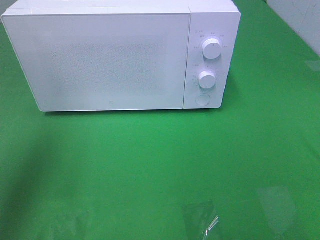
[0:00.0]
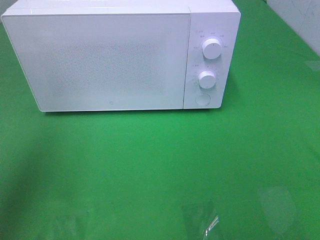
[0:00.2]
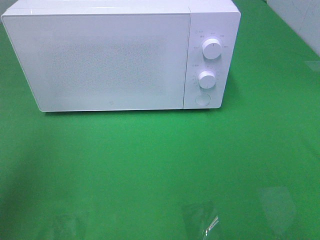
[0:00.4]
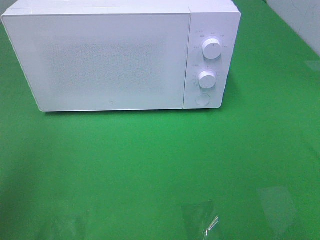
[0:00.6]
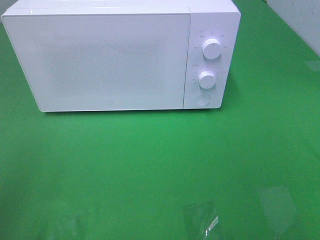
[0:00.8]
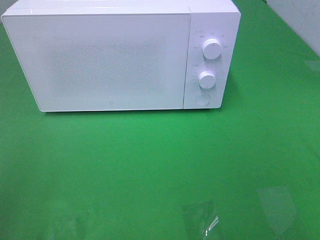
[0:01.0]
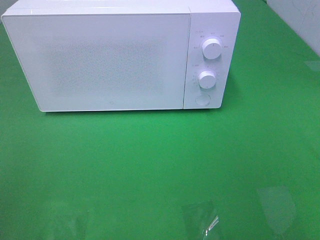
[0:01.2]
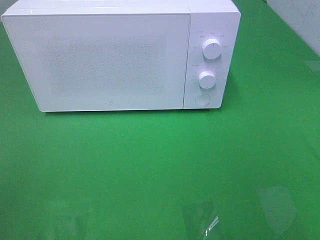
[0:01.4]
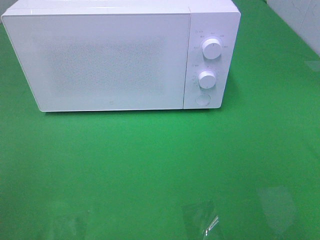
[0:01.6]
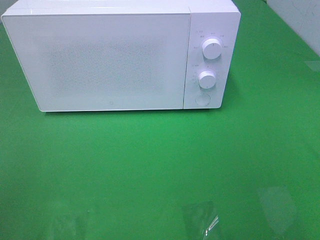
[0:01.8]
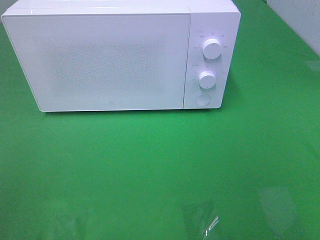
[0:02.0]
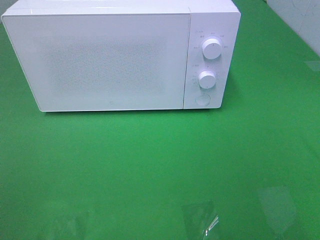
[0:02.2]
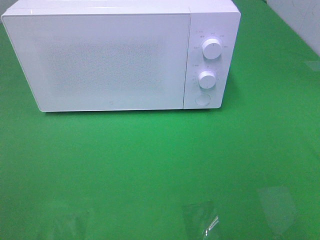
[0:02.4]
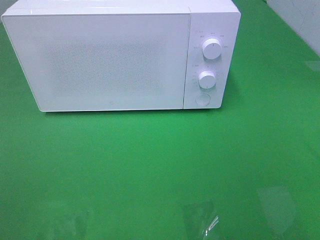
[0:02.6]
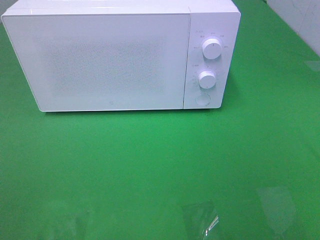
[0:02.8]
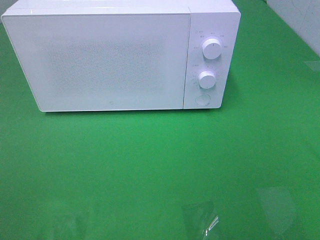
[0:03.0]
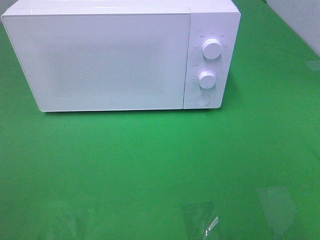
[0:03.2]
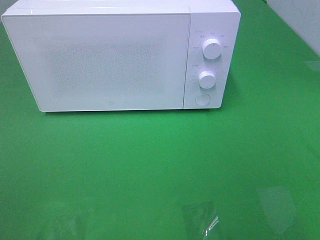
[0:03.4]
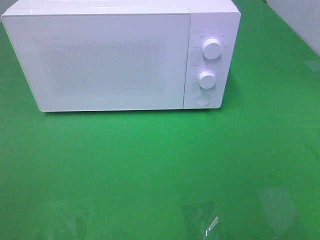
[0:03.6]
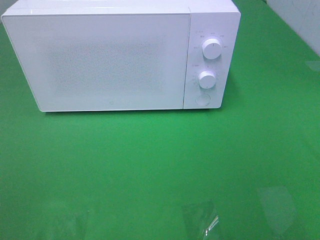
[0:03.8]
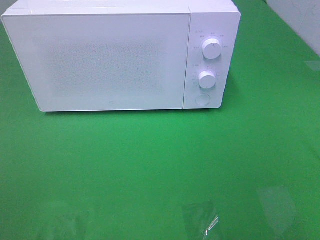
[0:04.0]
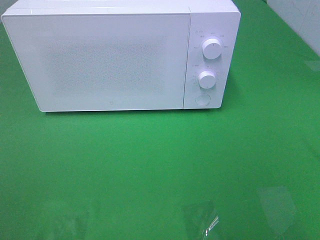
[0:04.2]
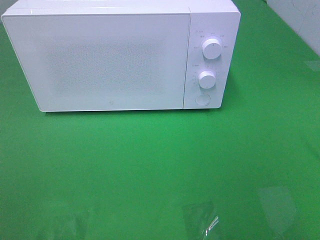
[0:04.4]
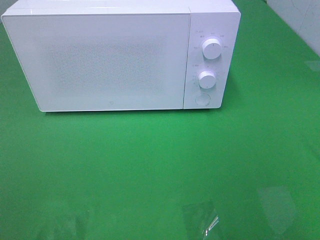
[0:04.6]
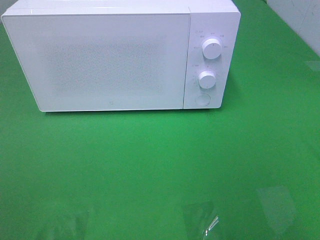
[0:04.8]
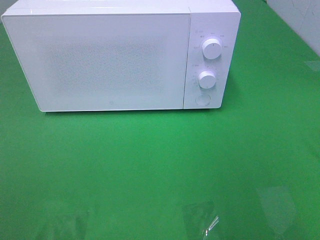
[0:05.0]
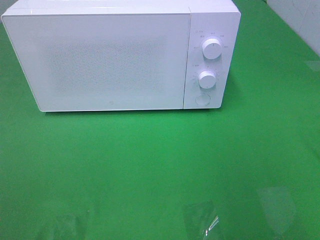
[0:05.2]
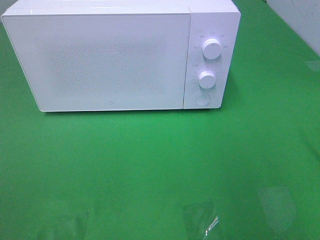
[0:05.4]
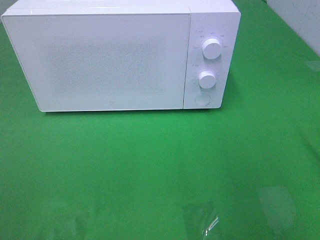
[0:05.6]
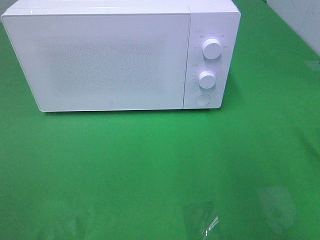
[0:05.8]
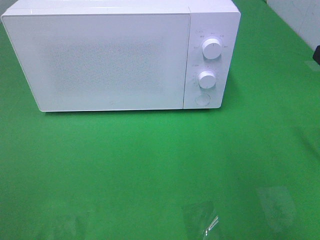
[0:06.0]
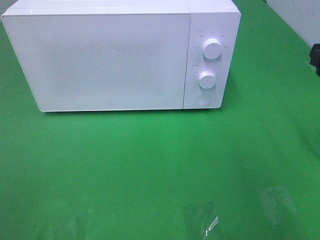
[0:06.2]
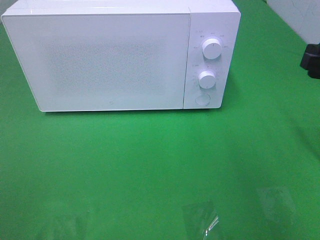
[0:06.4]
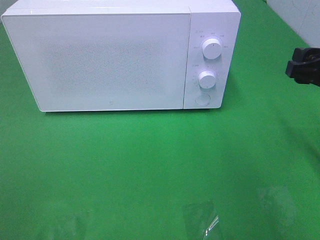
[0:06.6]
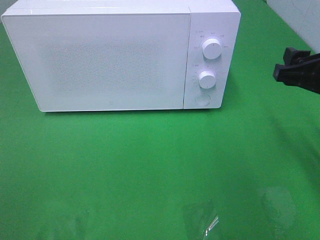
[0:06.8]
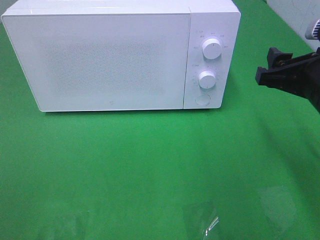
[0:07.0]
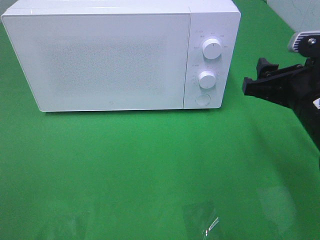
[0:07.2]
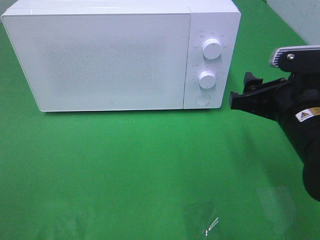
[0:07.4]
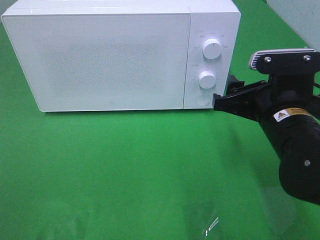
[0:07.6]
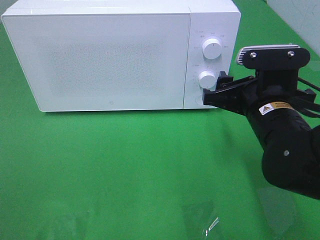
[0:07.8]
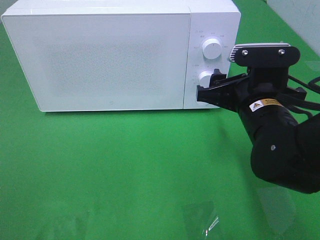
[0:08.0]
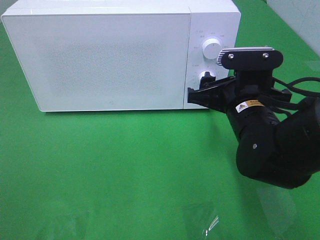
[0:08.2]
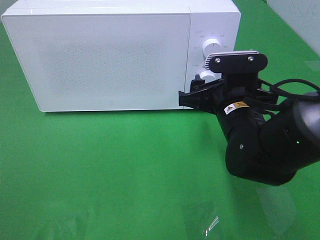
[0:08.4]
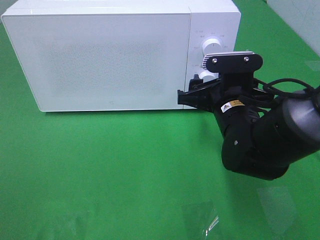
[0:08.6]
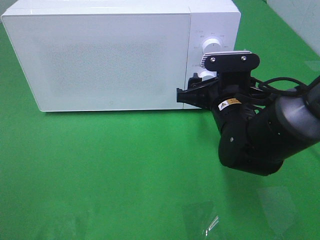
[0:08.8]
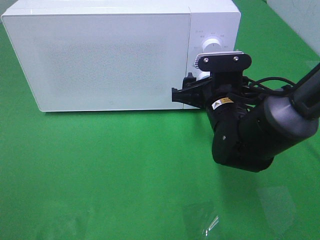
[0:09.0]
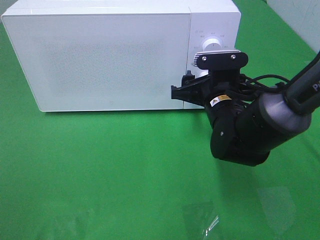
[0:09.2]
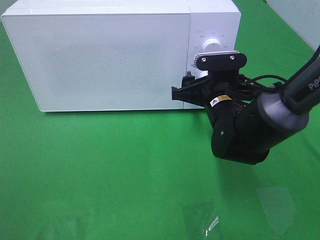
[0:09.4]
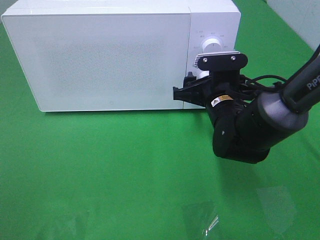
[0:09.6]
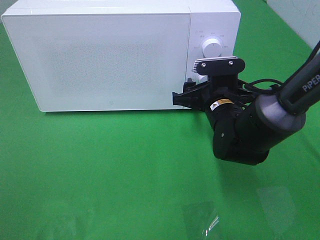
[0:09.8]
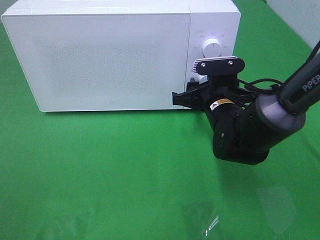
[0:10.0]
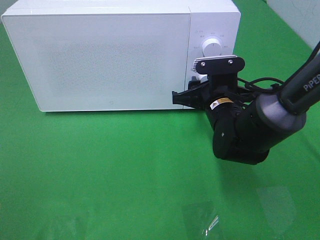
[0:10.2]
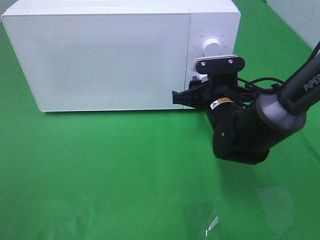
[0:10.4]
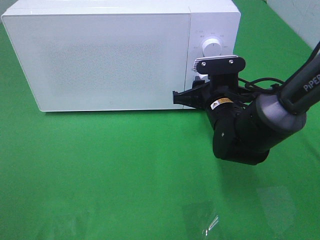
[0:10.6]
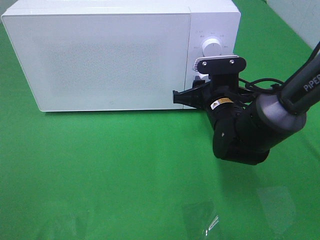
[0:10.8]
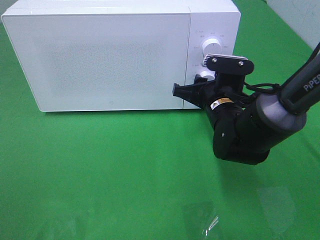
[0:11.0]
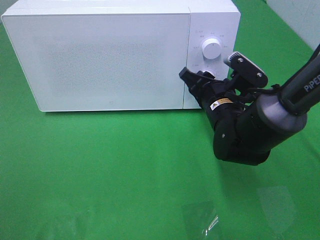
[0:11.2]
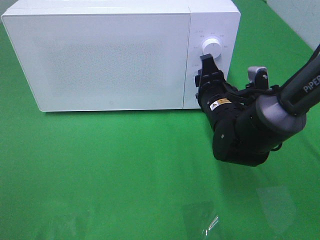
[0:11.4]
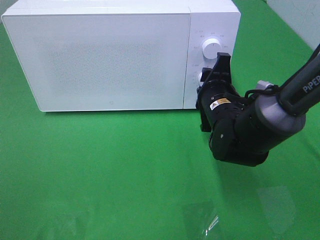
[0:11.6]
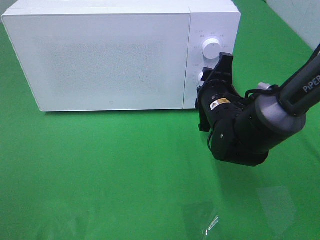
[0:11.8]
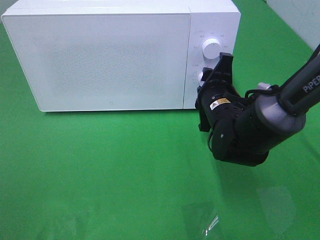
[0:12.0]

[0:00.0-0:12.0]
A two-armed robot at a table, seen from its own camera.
Task of the whole recording: Heat the burger.
0:00.0 to 0:01.6: The left gripper shifts some 20 cm backward and downward.
0:06.0 to 0:07.6: The right gripper is displaced to the left and downward by some 15 cm.
0:07.6 to 0:09.0: The right gripper heads forward and to the left, covering some 10 cm.
0:09.0 to 0:10.4: The grippers stay close to where they were, moving slightly.

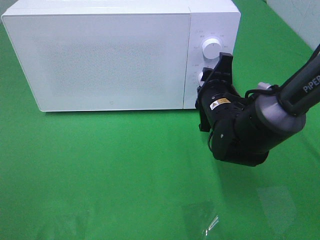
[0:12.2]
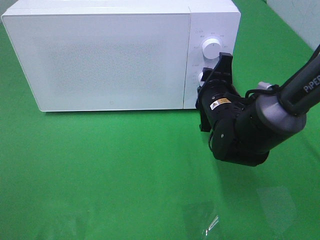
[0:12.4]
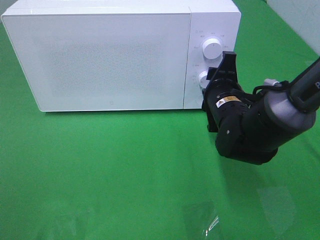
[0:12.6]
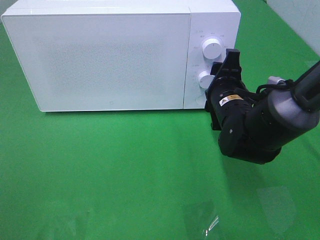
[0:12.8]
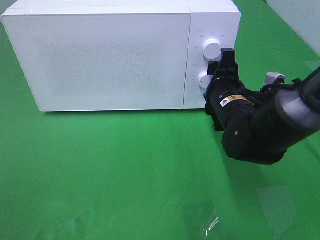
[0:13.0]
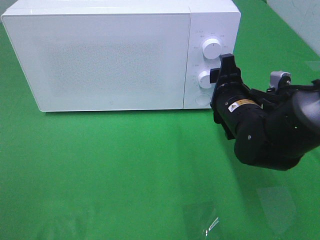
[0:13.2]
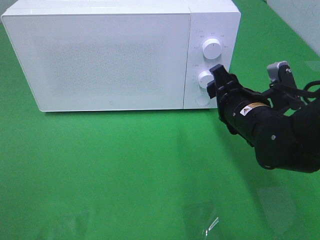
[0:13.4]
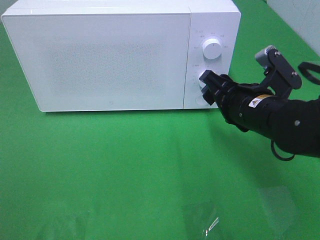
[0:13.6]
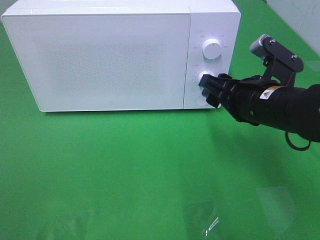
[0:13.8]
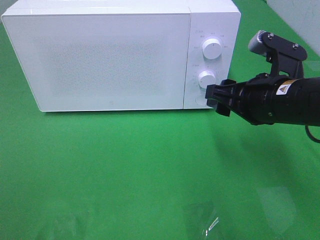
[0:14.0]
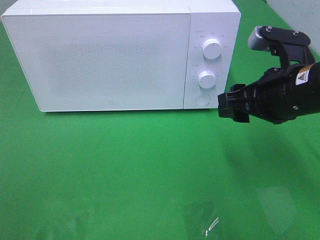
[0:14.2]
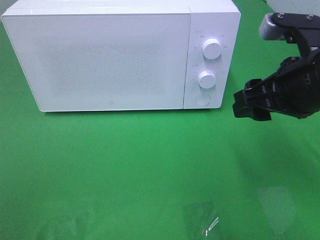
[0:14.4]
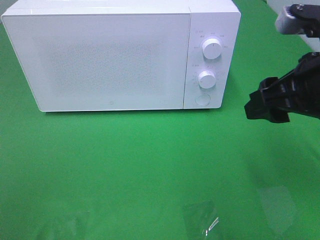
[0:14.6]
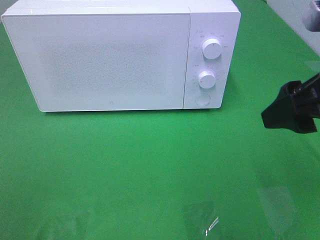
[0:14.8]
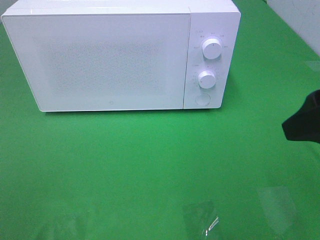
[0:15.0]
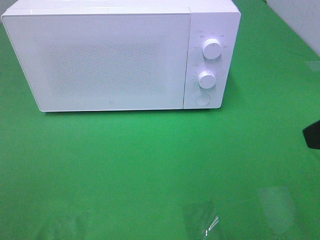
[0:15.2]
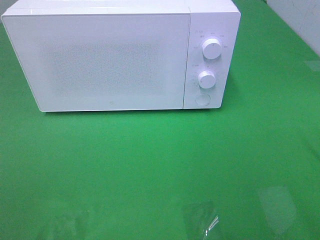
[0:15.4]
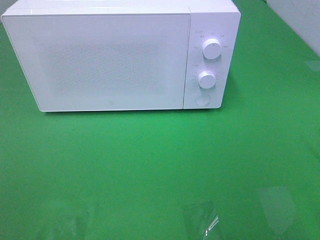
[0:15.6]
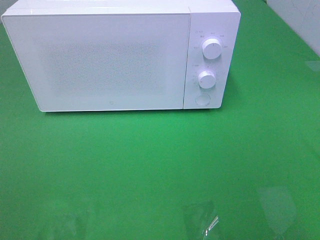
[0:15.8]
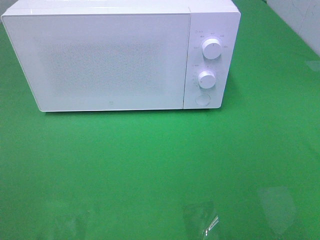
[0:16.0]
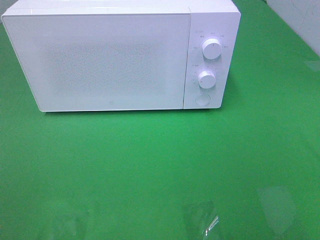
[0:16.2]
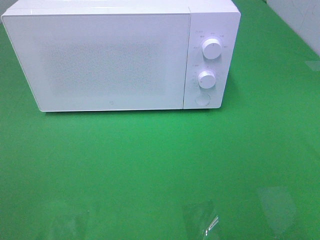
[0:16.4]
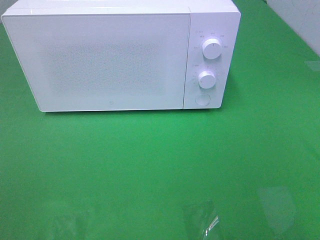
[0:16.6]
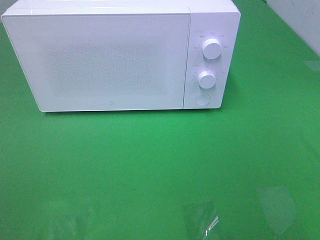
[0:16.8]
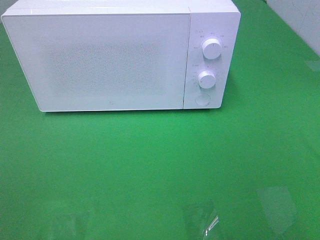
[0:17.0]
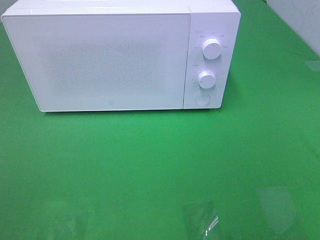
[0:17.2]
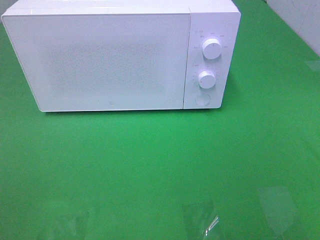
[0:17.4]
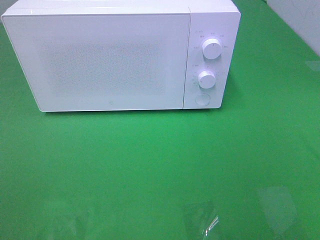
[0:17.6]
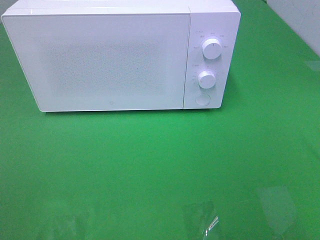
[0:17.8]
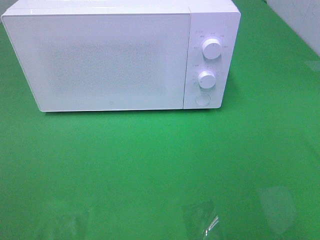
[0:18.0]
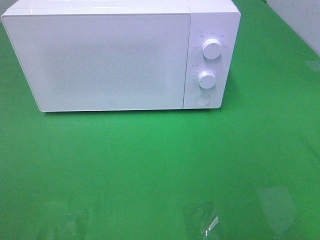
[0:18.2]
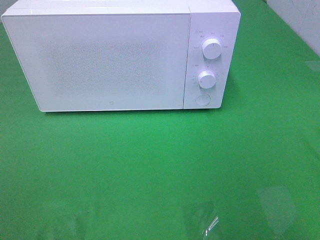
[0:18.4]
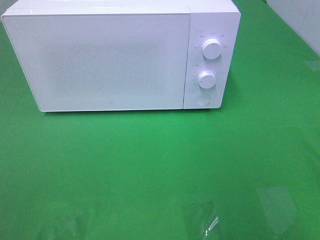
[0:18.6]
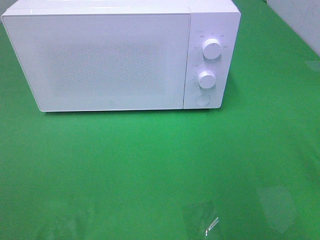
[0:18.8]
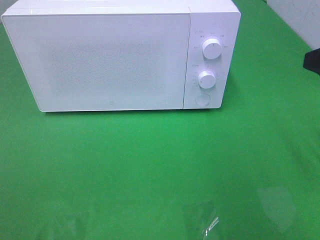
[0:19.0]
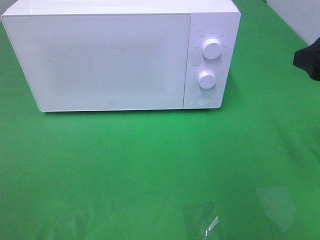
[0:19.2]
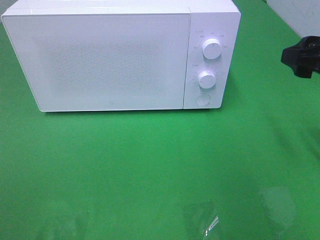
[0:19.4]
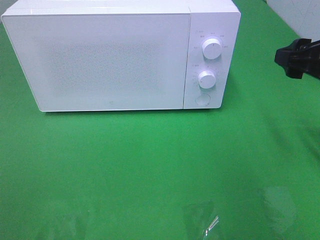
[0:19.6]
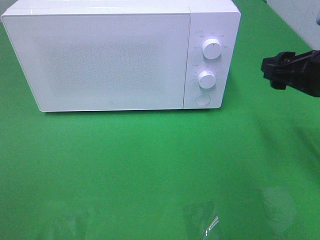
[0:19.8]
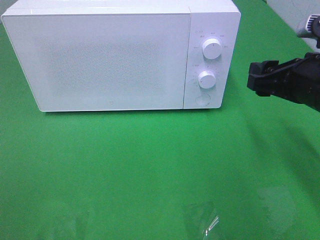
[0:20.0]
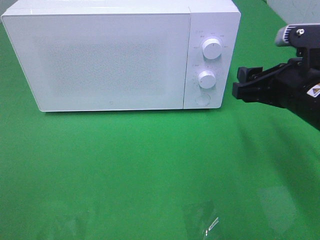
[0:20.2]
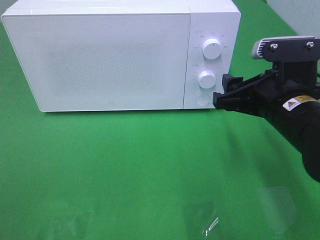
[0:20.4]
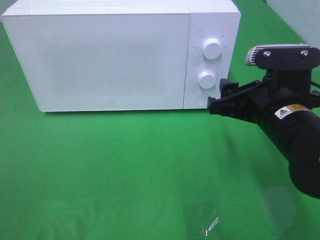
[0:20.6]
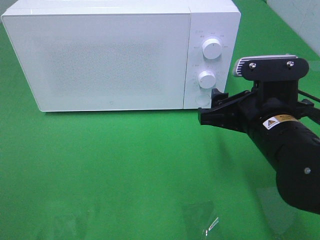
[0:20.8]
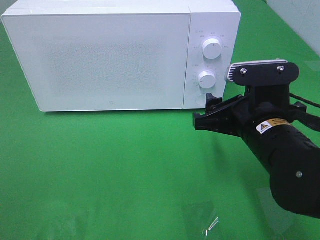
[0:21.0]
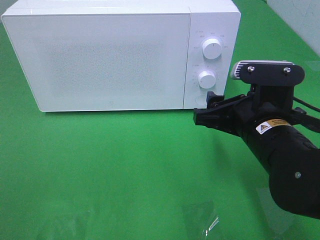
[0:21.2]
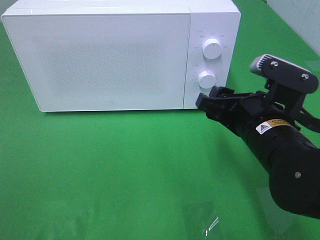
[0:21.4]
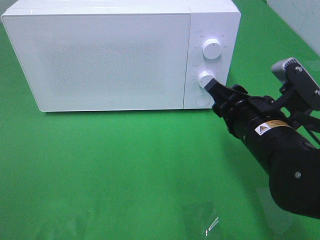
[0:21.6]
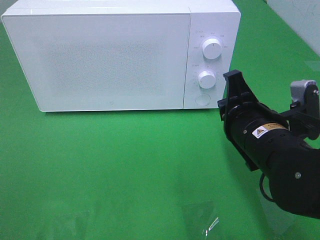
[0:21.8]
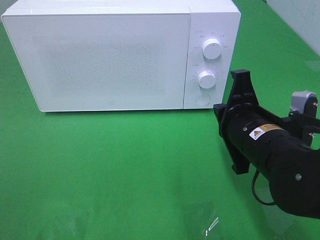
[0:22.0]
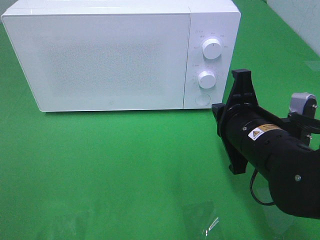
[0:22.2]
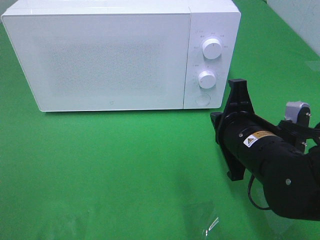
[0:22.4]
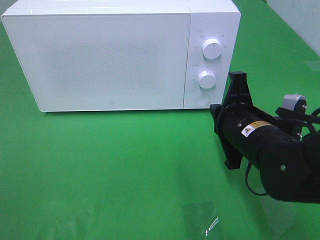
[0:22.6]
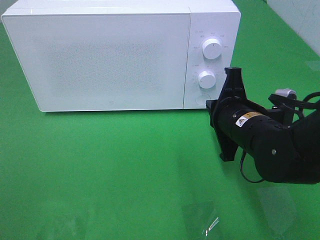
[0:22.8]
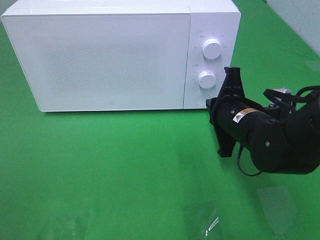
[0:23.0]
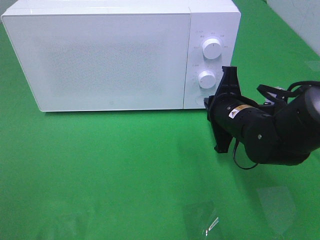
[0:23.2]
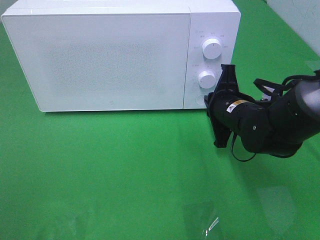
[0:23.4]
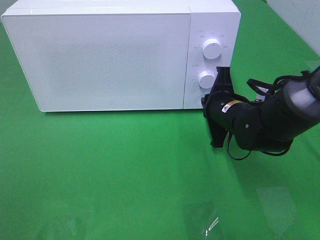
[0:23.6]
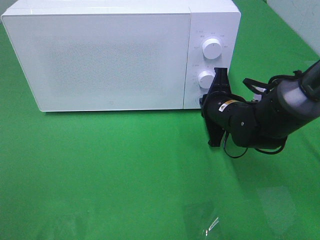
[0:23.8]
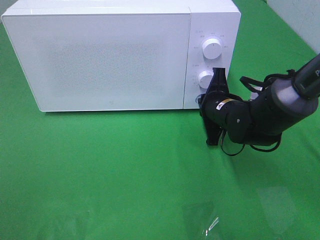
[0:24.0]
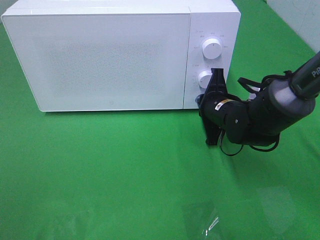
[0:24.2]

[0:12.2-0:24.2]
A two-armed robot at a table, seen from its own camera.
Task of the whole recording: Heat the burger.
0:12.2 to 0:13.8: The right gripper travels upward and backward by roughly 10 cm.
0:13.8 to 0:15.2: The right gripper moves backward, upward and to the right, about 20 cm.
0:18.2 to 0:19.8: The right gripper travels forward and downward by approximately 20 cm.
0:19.8 to 0:21.2: The right gripper shifts roughly 10 cm to the left and downward.
0:21.2 to 0:22.6: The right gripper closes.
0:22.6 to 0:24.2: The right gripper is displaced forward and downward by roughly 10 cm.
